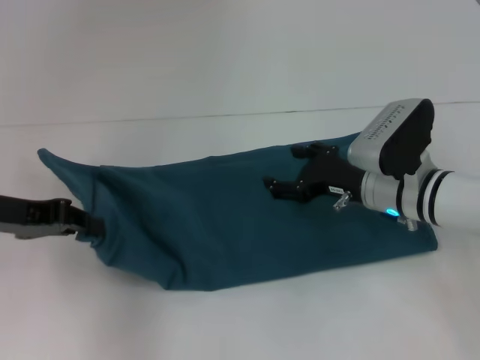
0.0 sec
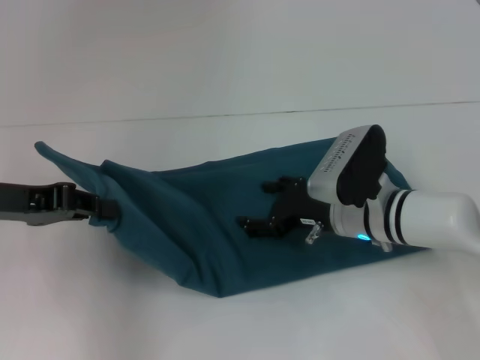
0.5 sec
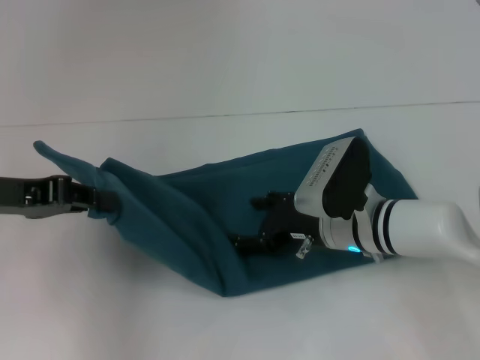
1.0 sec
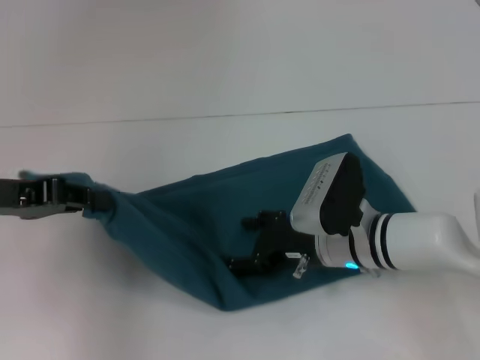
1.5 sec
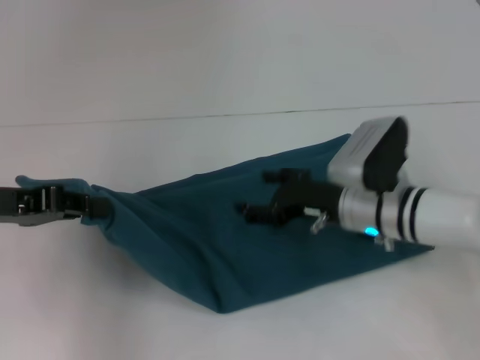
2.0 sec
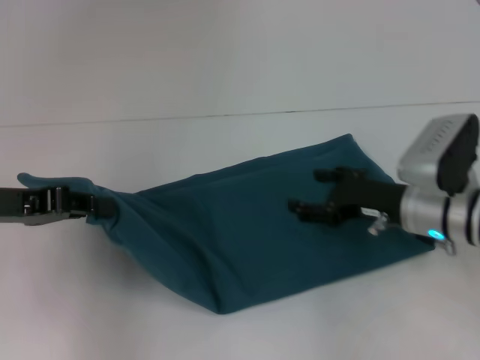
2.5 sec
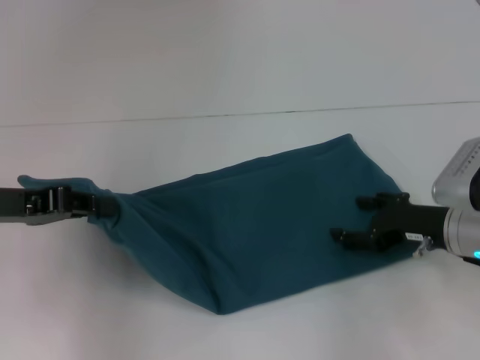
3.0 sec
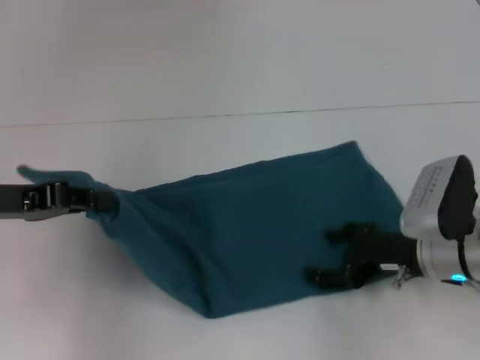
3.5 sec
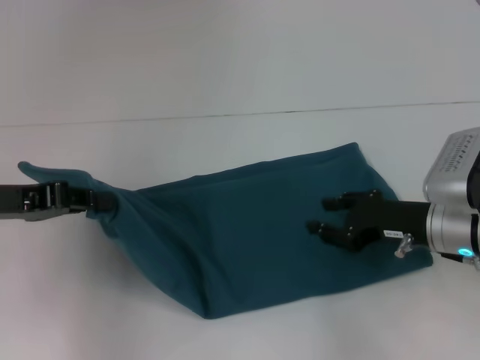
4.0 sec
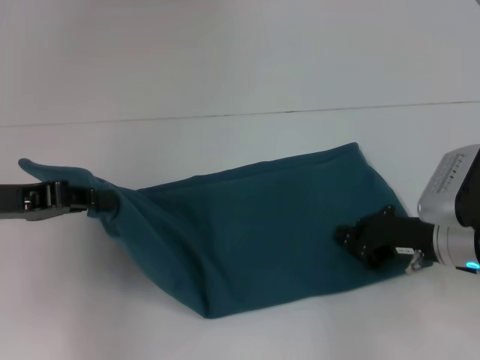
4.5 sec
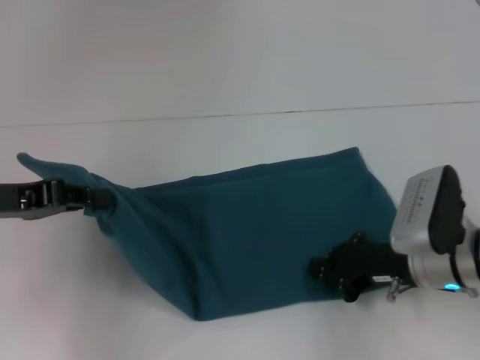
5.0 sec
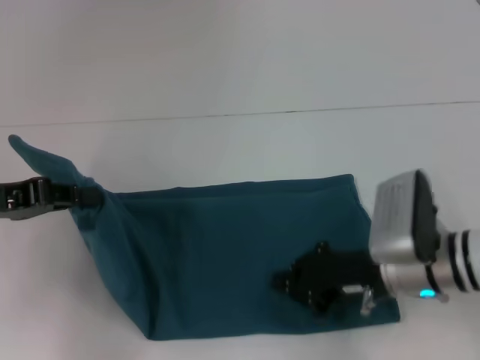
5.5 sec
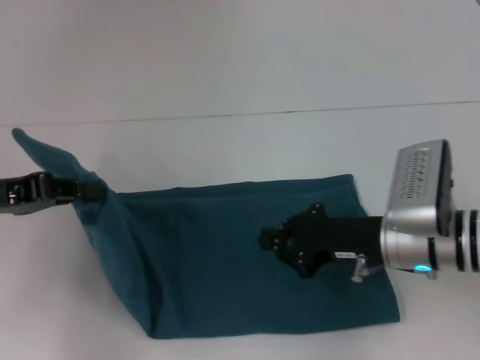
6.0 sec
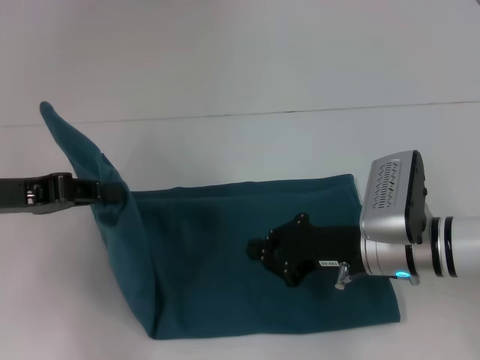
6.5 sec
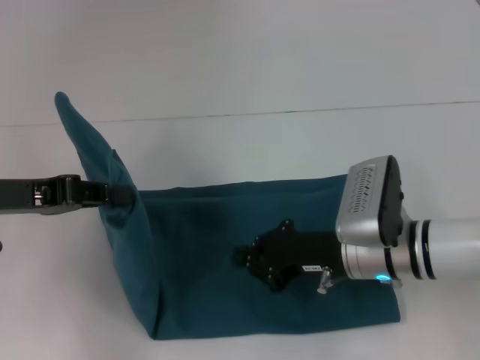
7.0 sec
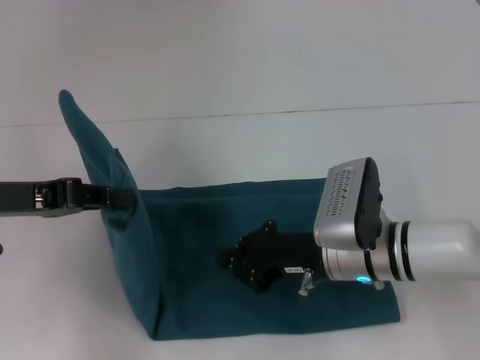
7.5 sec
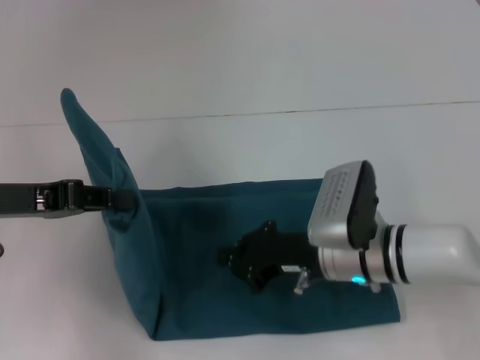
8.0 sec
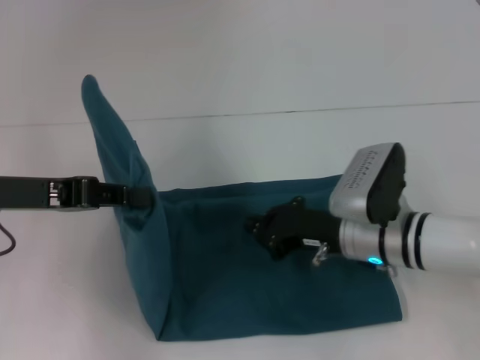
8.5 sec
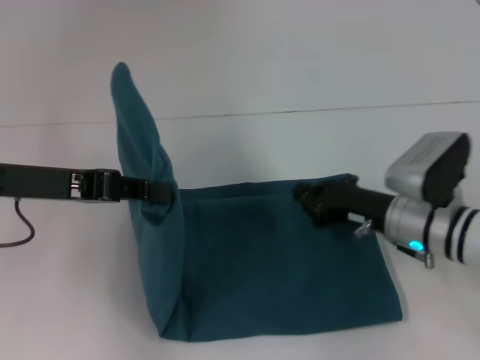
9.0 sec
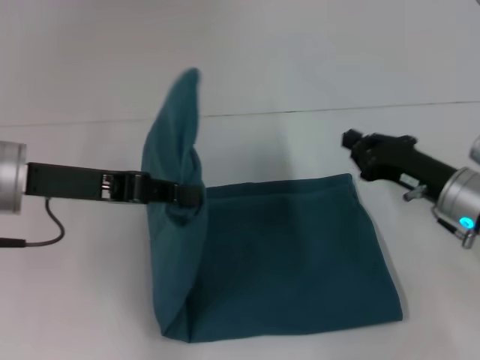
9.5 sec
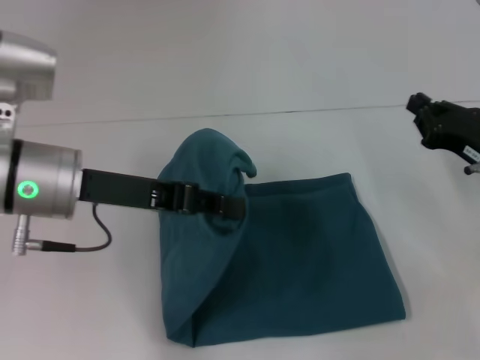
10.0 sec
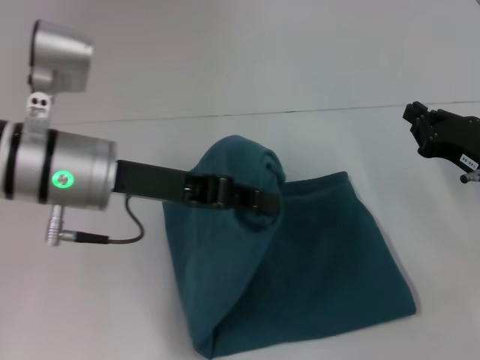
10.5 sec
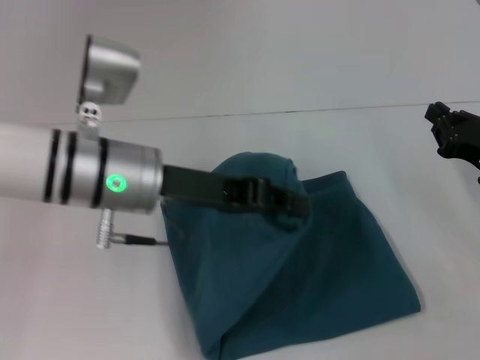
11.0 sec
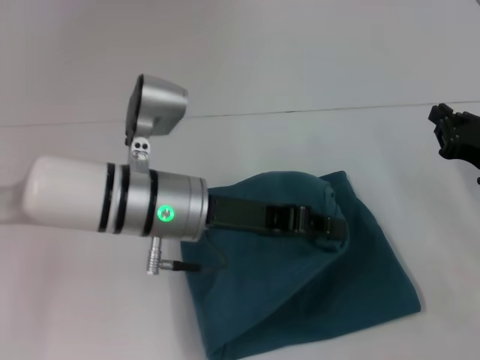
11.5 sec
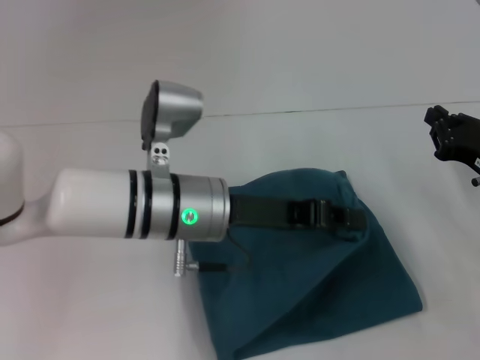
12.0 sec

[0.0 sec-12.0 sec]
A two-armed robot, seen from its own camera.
Step, 0.0 sec to 8.0 sec: Press the middle of the clothes with your right hand.
2.0 sec to 4.0 sec: The right gripper shifts about 10 cm to the right.
4.0 sec to 6.0 sec: The right gripper closes.
6.0 sec to 8.0 sec: The right gripper heads to the left, covering approximately 5 cm.
8.0 sec to 10.0 sec: The left gripper shifts approximately 10 cm to the right. Meanwhile the right gripper moves to the right, about 15 cm.
10.0 sec to 12.0 sec: The left gripper is displaced to the right and downward by about 10 cm.

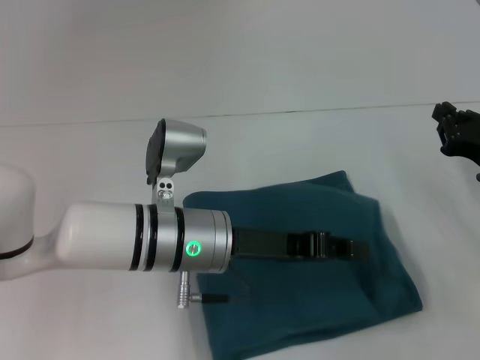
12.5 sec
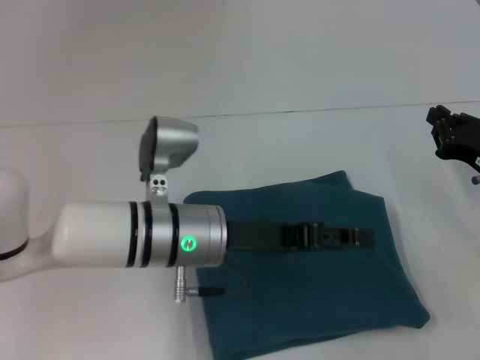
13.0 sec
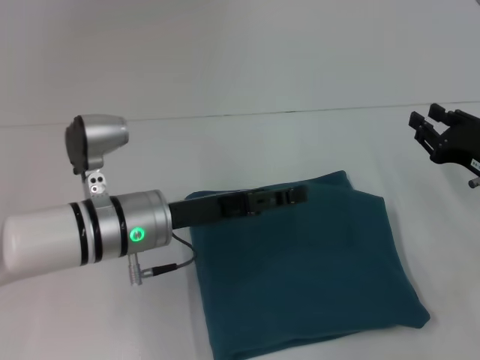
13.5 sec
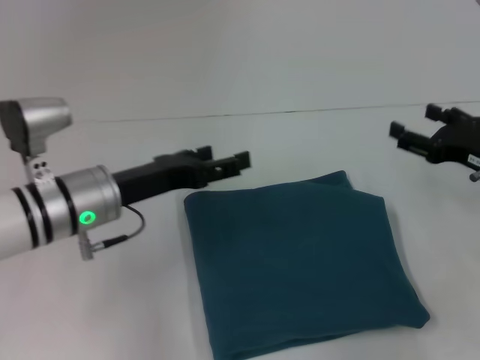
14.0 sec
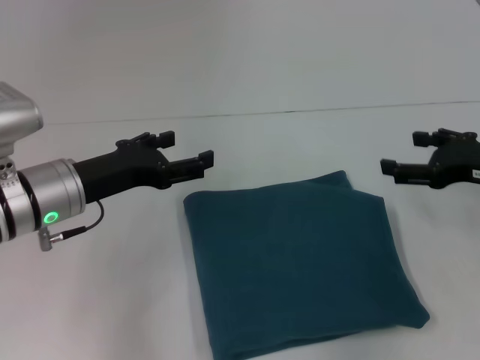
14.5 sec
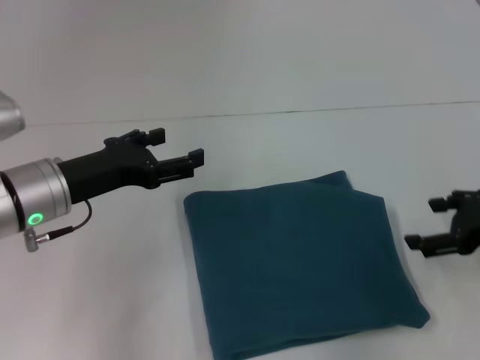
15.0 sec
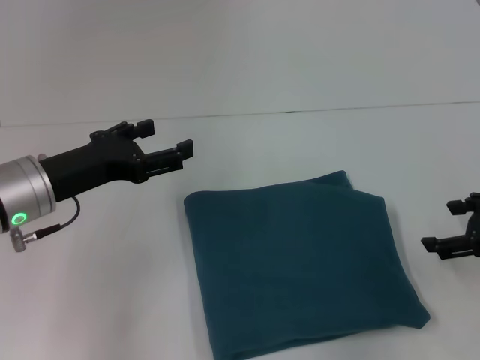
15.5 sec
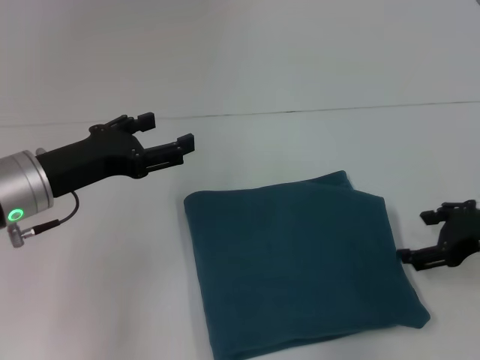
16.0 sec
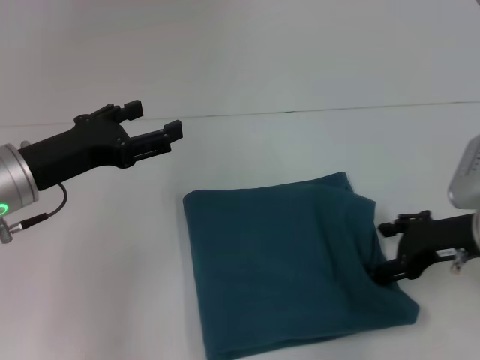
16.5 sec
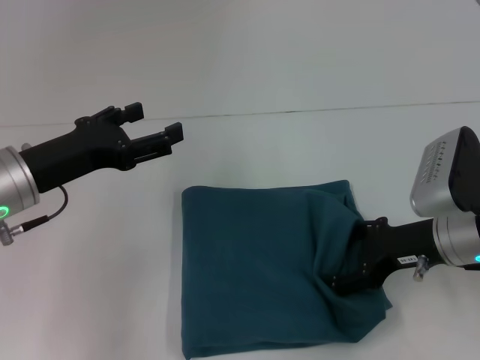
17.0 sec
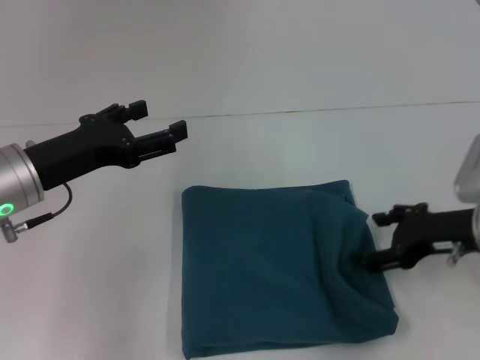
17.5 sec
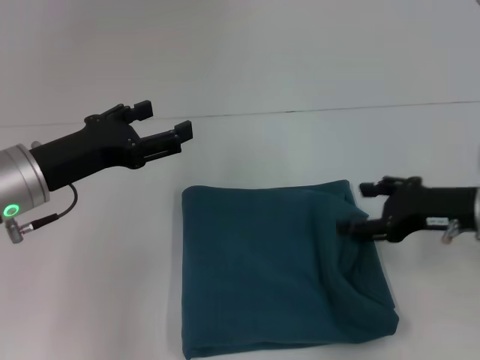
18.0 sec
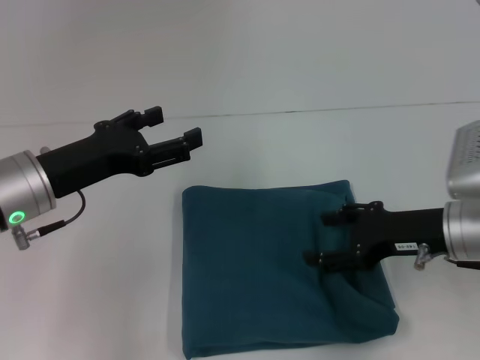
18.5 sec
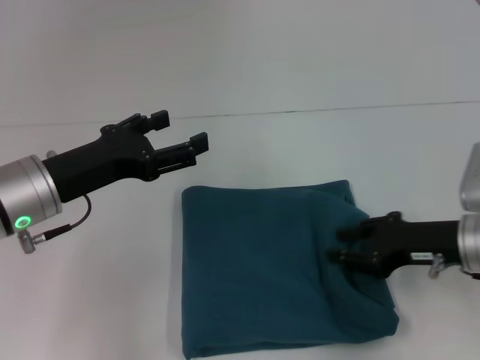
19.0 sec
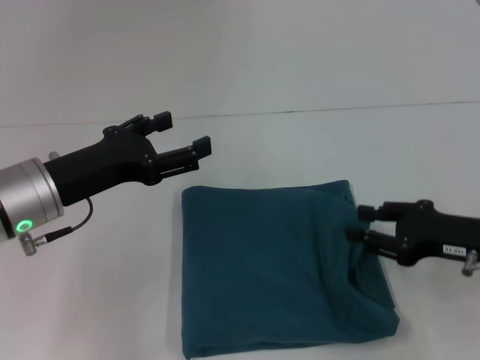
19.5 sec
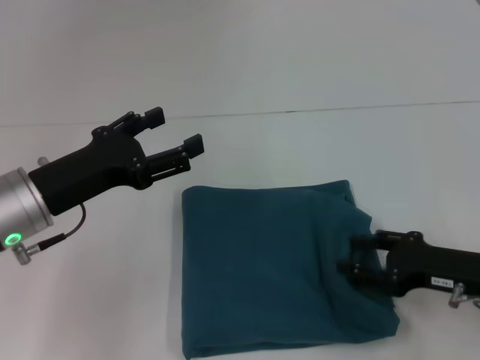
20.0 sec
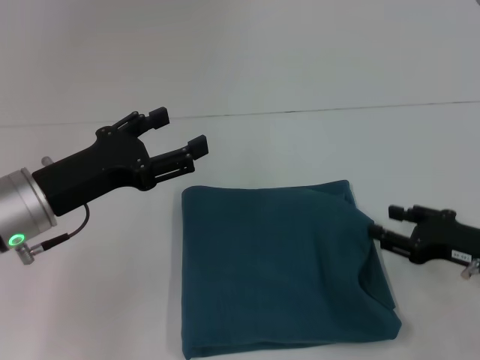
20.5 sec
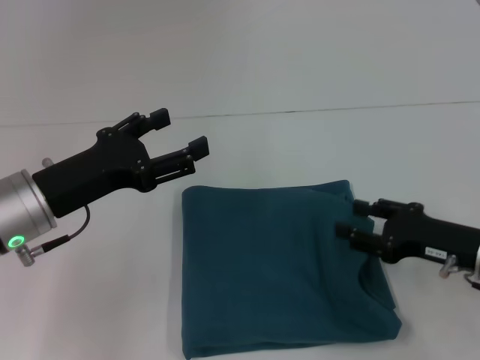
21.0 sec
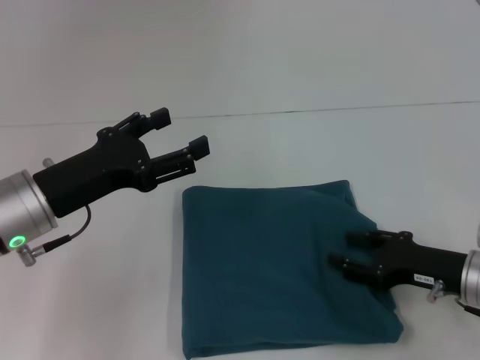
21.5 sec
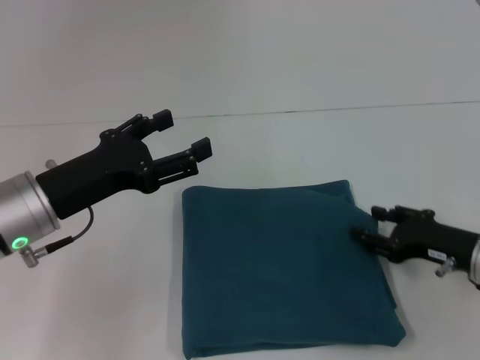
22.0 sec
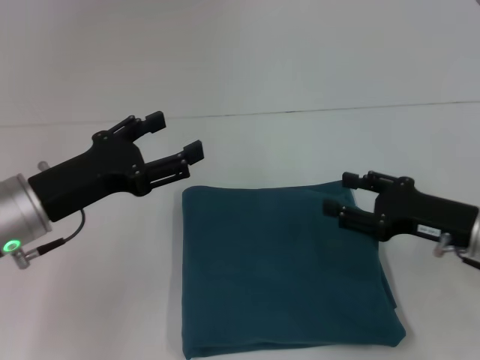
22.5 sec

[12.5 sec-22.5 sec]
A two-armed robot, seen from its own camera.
12.5 sec to 14.5 sec: The left gripper moves to the left, about 15 cm, and opens its fingers. Meanwhile the right gripper travels upward by about 5 cm, and opens its fingers.
14.5 sec to 16.5 sec: The right gripper ends up some 5 cm from where it was.
16.5 sec to 18.5 sec: There are only small adjustments of the grippers.
18.5 sec to 20.5 sec: The right gripper is displaced to the right and downward by approximately 10 cm.
20.5 sec to 22.5 sec: The grippers make only small movements.

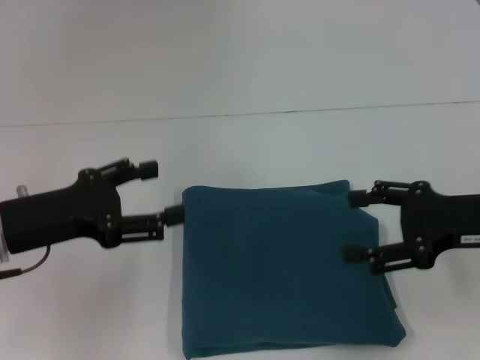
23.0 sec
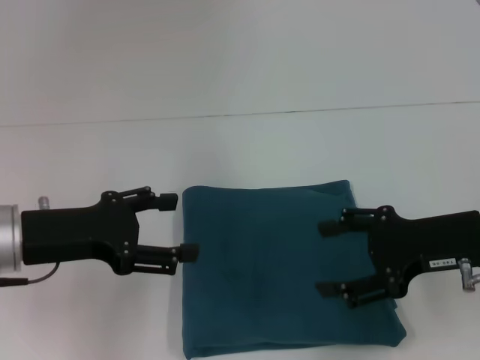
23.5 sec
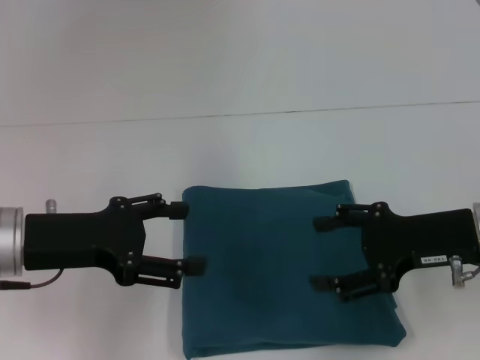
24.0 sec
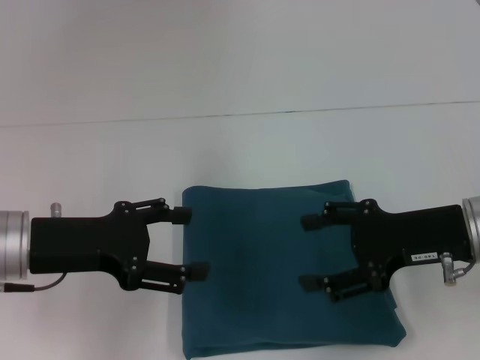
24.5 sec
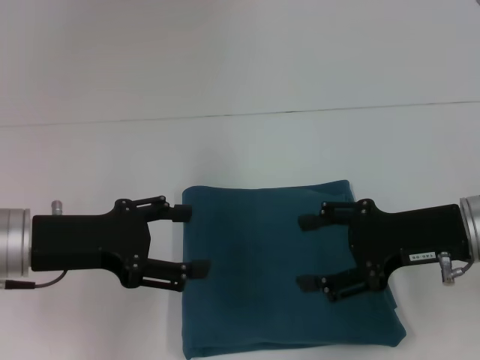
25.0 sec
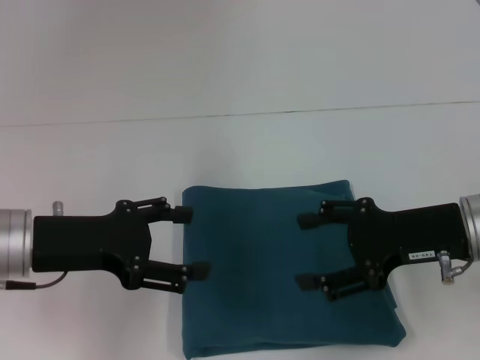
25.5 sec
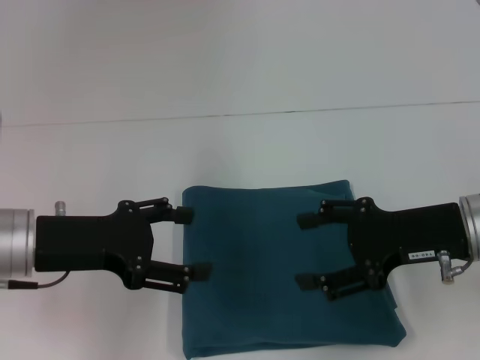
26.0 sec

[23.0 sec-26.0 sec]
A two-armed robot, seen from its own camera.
23.0 sec to 24.5 sec: The grippers stay close to where they were, moving slightly.
24.5 sec to 26.0 sec: Both grippers stay about where they are.

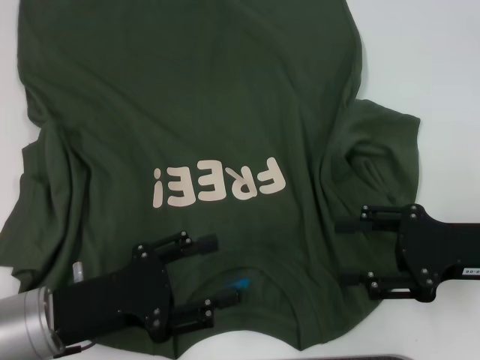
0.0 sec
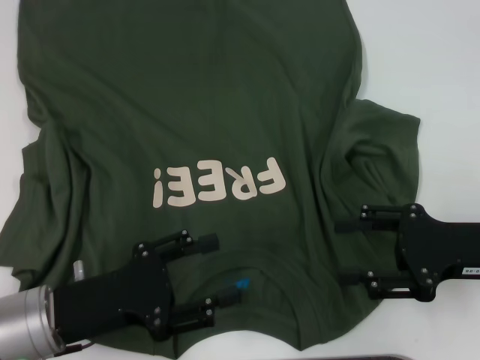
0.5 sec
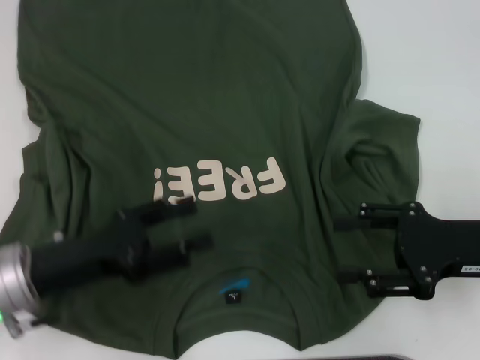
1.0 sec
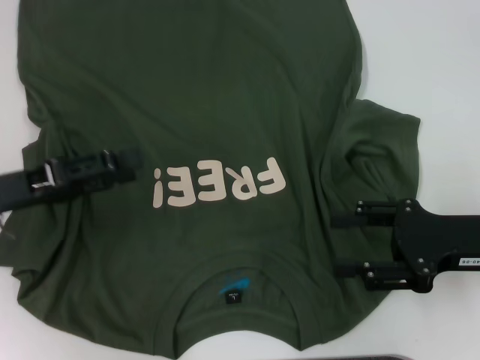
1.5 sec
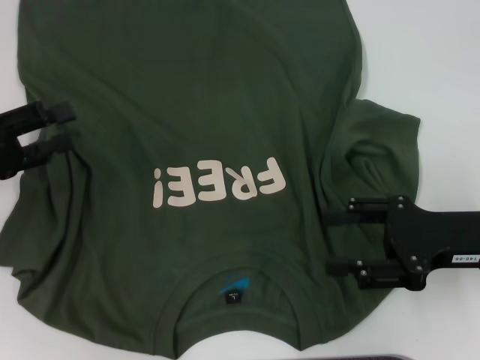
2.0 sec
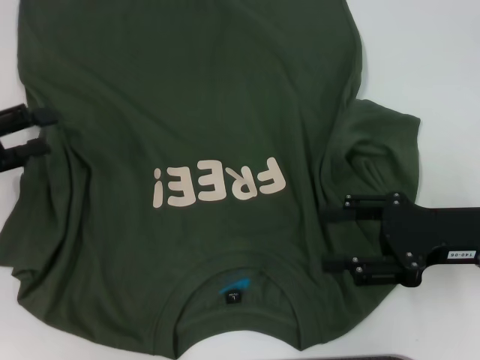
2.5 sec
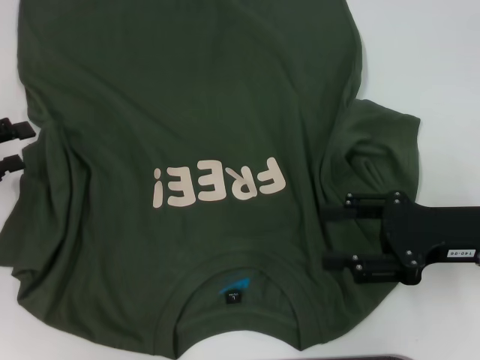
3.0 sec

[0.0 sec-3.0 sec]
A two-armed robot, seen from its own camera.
0.0 sec to 1.5 sec: The left gripper travels forward, to the left and upward by roughly 15 cm.
1.5 sec to 3.0 sec: The left gripper moves to the left, approximately 10 cm.
